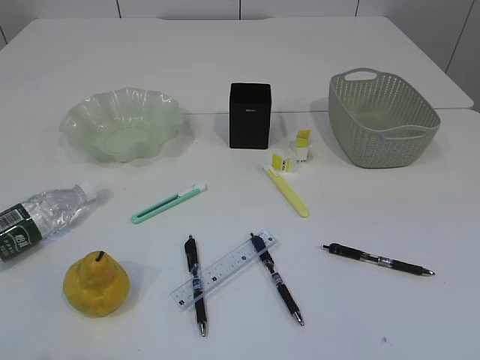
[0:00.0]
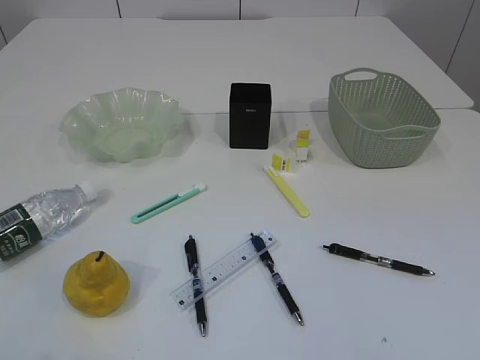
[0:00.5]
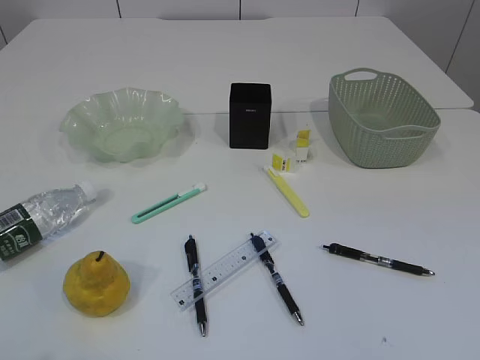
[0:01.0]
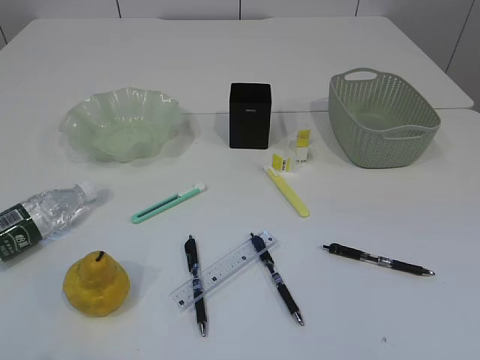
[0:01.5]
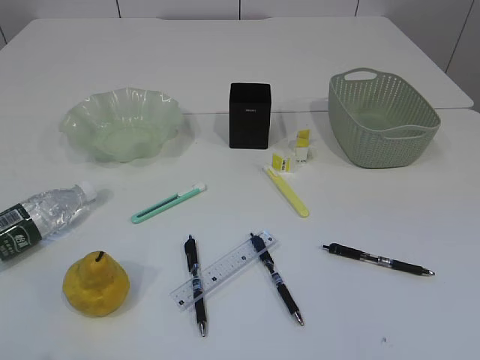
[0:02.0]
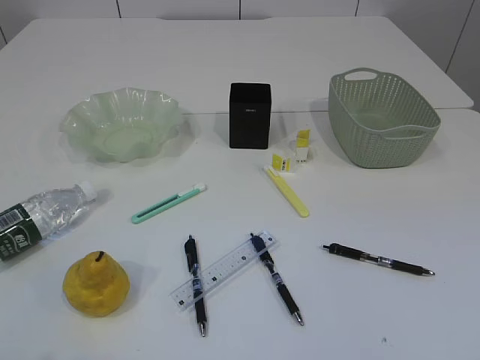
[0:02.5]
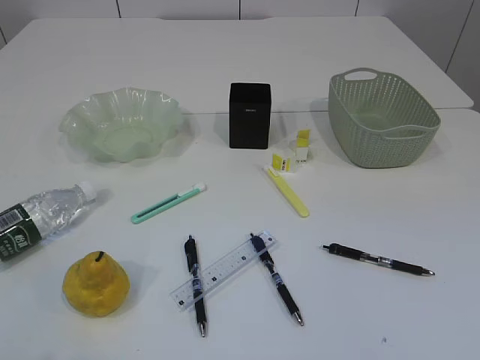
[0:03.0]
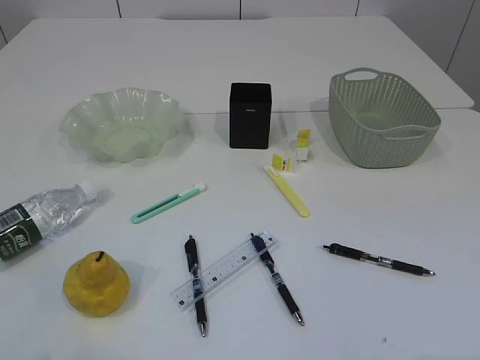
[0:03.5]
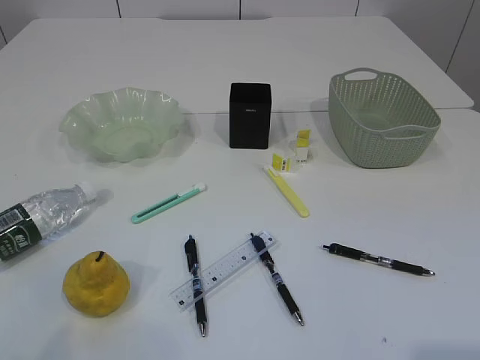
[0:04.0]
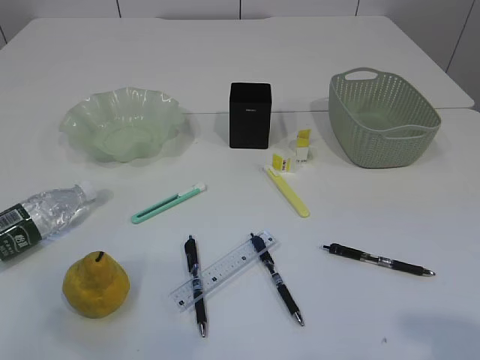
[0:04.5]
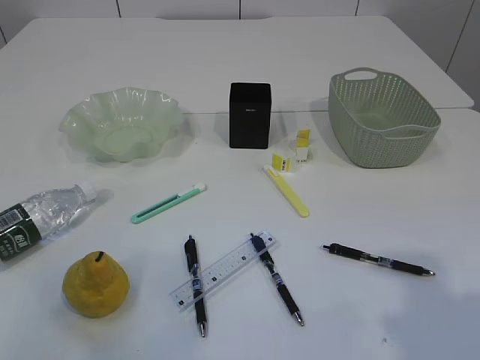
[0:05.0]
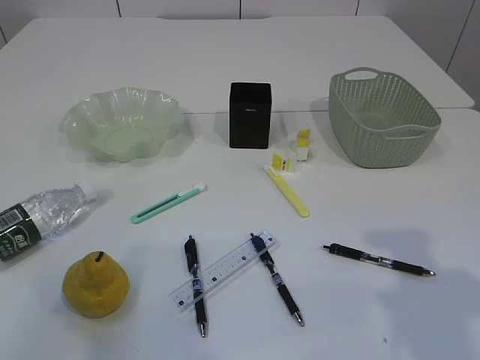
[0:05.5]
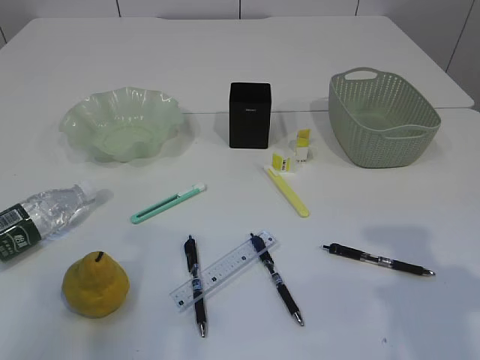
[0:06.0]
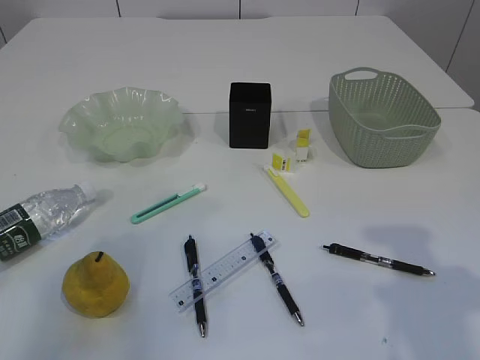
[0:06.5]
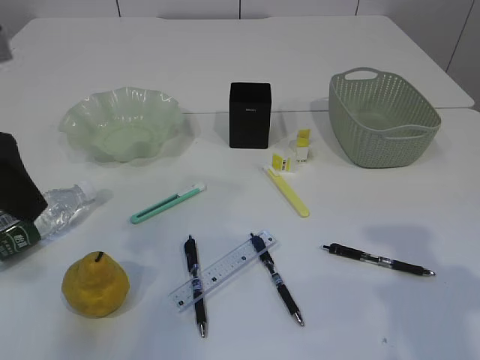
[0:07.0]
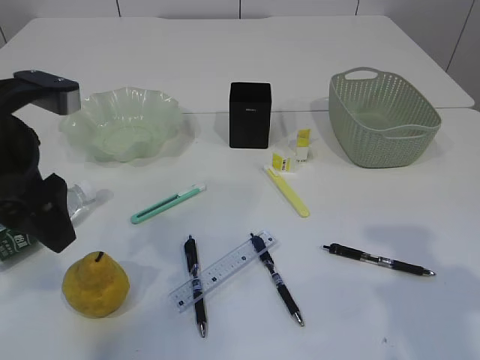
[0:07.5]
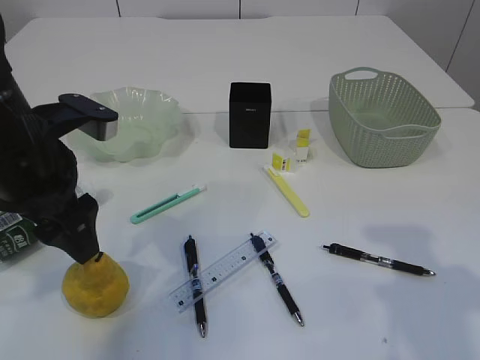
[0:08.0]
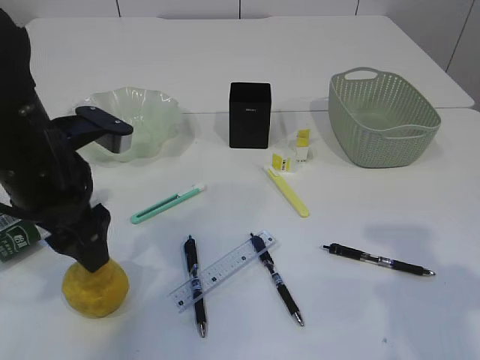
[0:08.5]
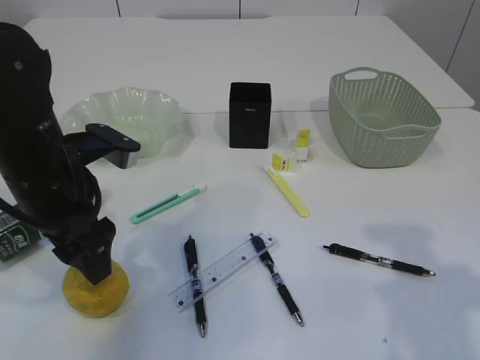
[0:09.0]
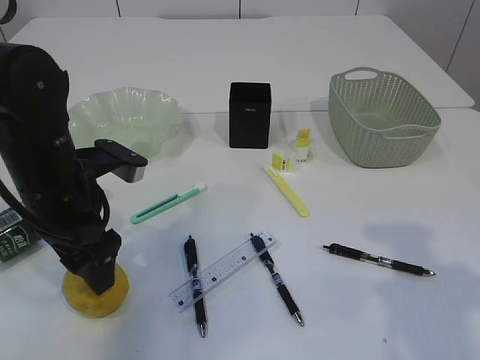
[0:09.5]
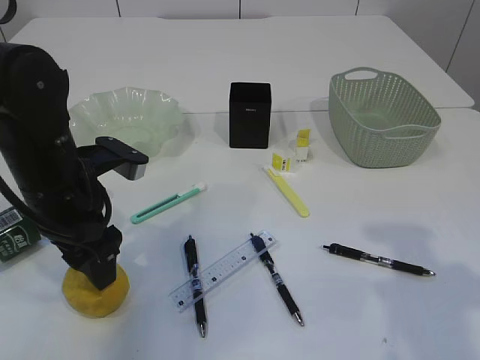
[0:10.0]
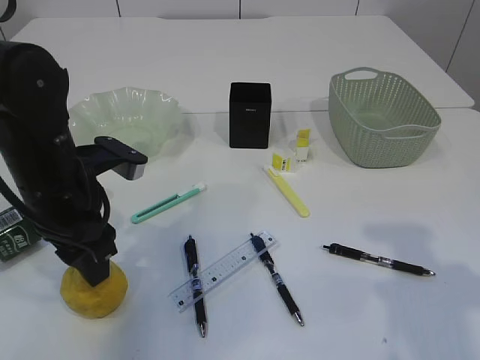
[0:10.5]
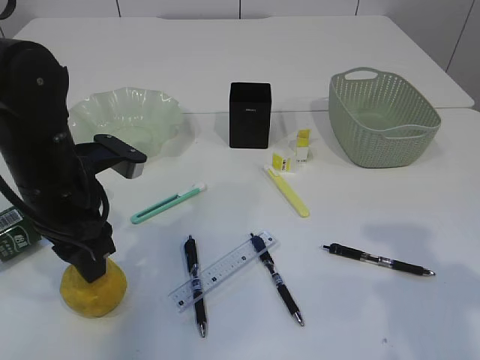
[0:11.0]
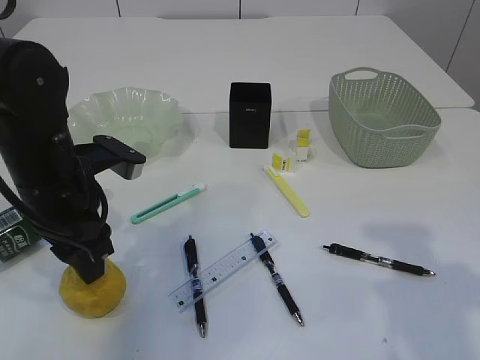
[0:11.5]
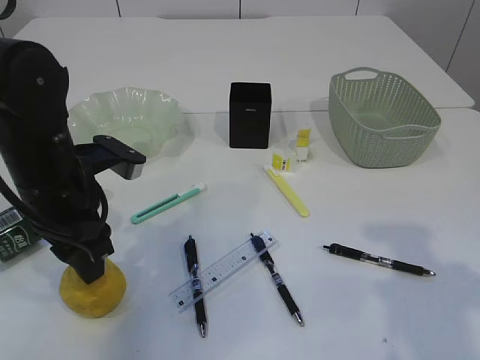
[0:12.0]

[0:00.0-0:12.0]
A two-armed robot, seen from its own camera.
0:04.0 to 0:06.0: Both grippers travel together forward, some 15 cm.
0:06.0 to 0:08.0: The left gripper shifts about 15 cm forward and to the right.
0:08.0 to 0:10.0: The left gripper goes some 5 cm downward.
0:10.0 to 0:12.0: The left gripper closes.

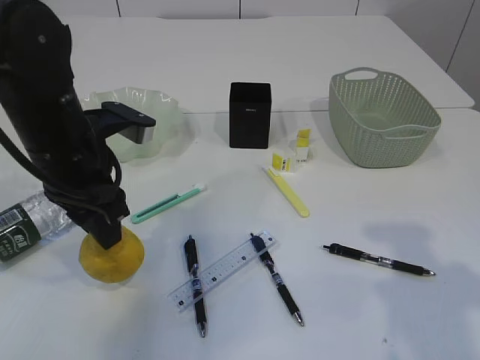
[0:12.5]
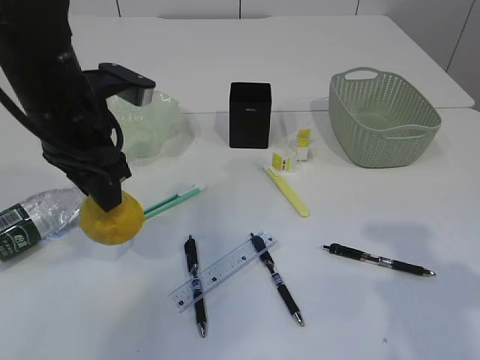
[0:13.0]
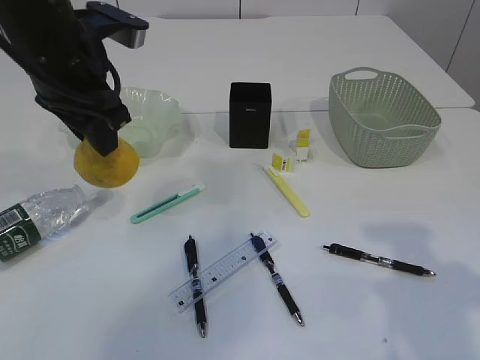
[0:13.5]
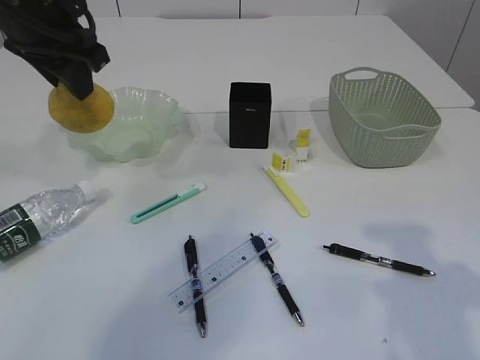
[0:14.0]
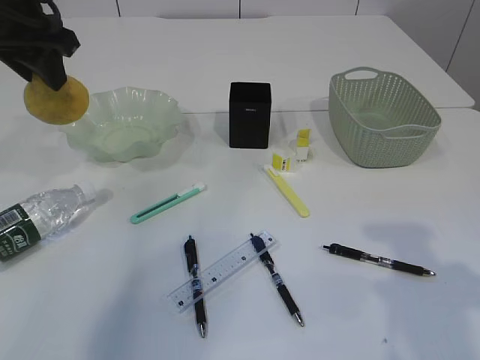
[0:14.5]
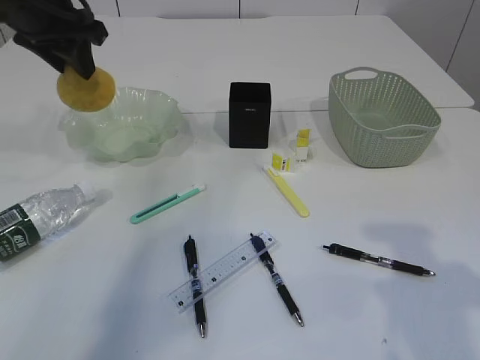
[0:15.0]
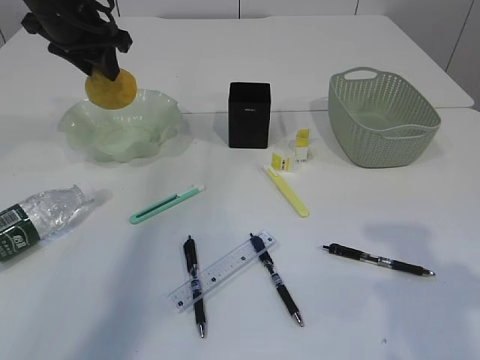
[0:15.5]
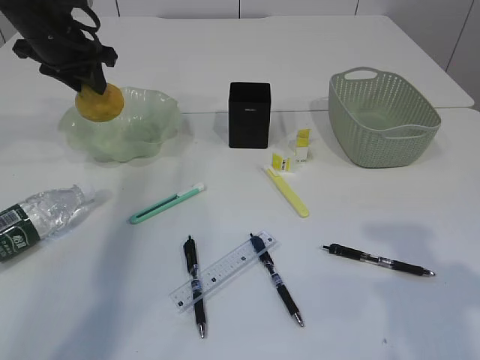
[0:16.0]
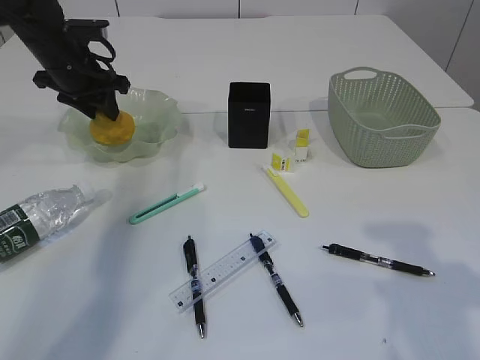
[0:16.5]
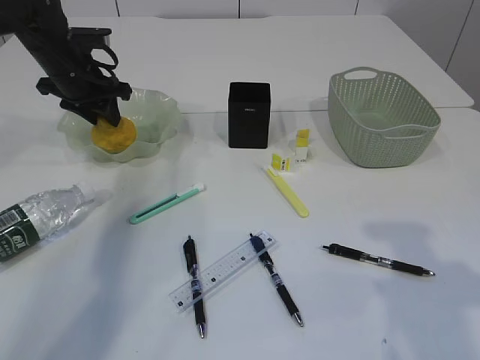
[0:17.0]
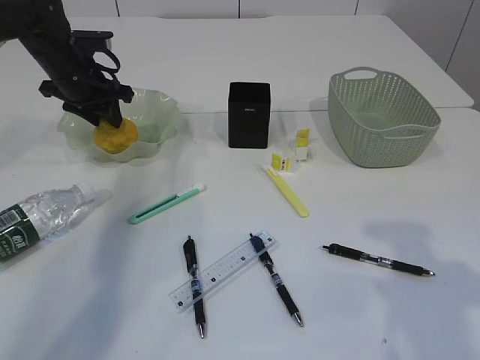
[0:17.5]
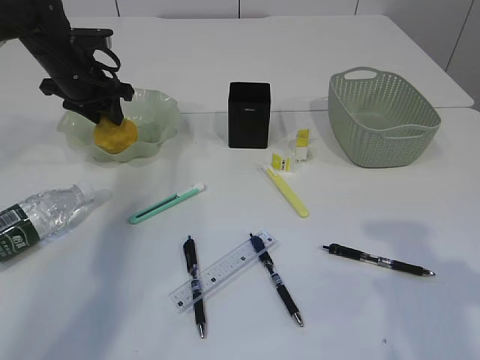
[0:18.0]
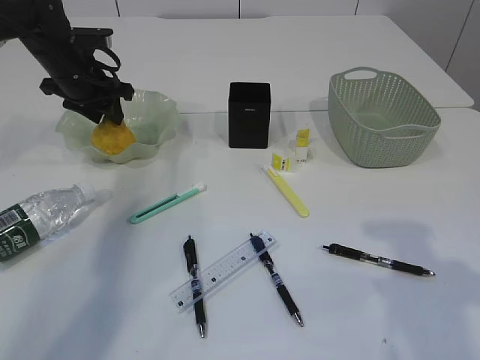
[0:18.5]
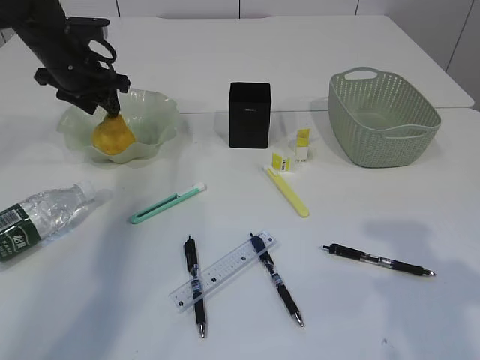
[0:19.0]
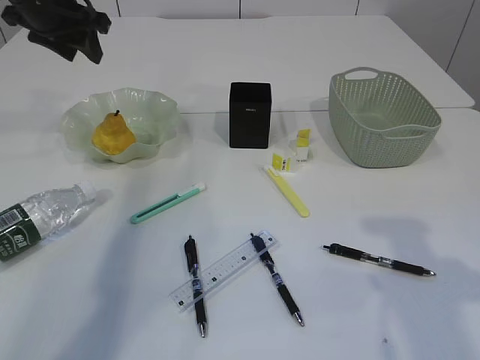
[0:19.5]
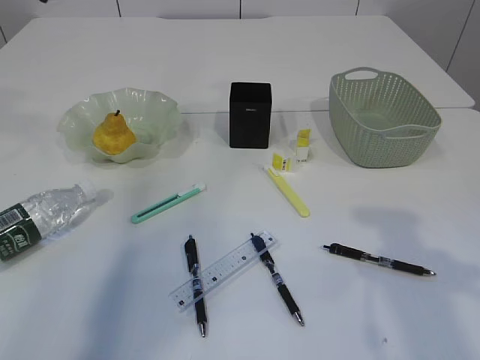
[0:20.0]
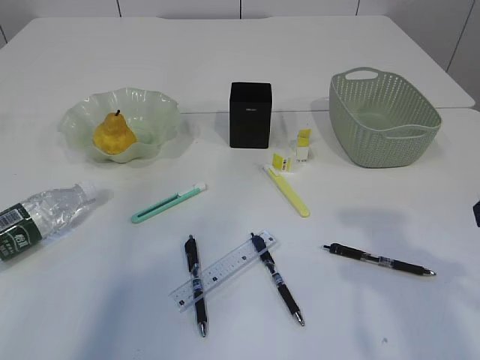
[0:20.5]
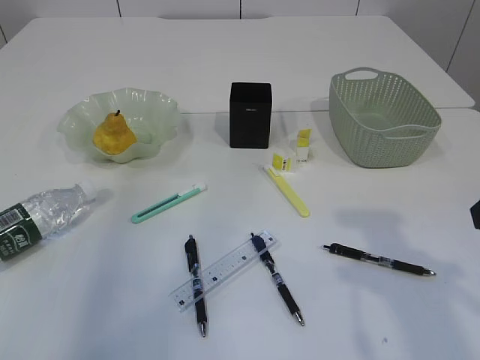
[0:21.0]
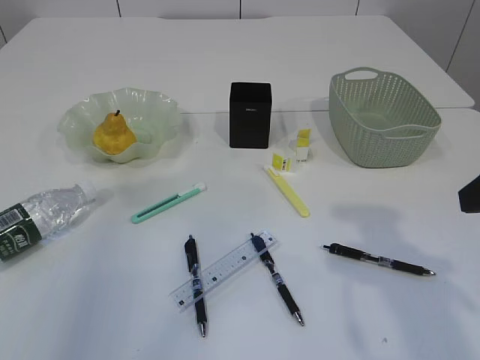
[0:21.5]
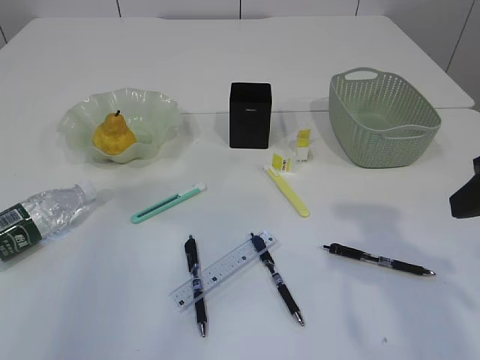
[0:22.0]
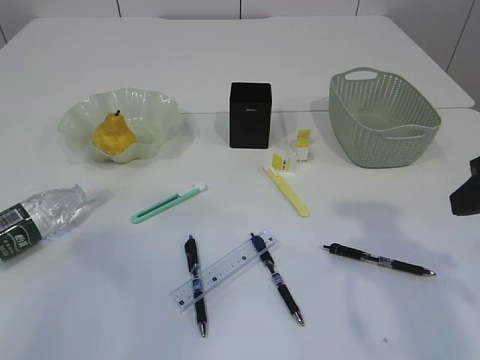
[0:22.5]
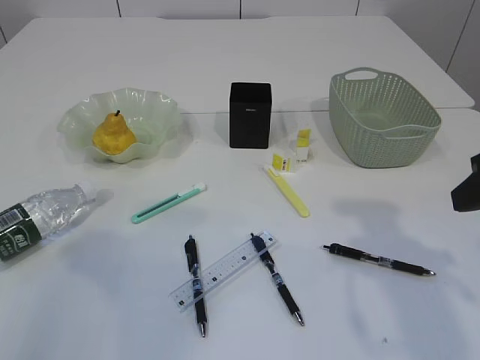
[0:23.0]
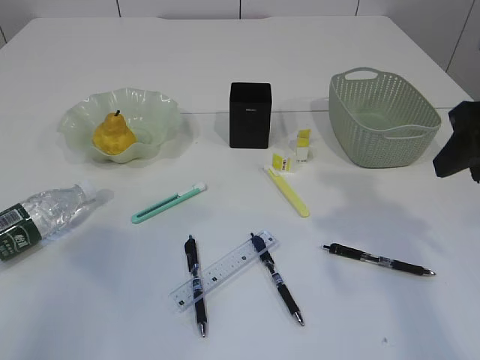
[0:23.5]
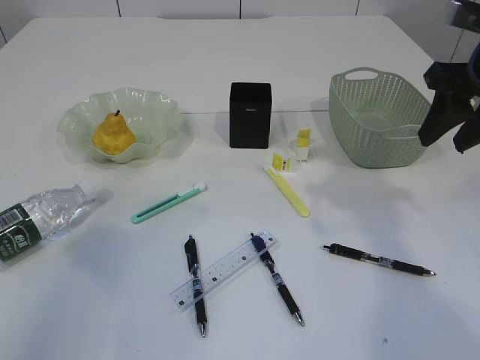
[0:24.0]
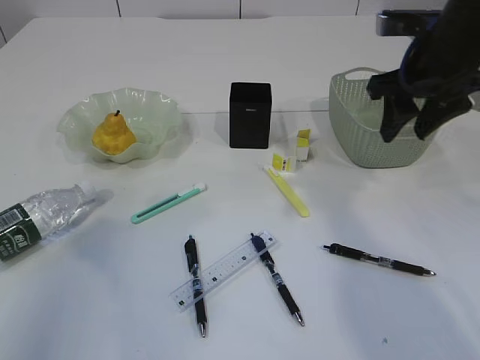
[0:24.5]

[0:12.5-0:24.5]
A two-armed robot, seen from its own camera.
Step, 0:13.5 to 0:19.5: Place the pear in the plate.
0:12.5 to 0:14.5: The left gripper heads upward, forward and to the left, covering approximately 15 cm.
0:14.5 to 0:16.5: The left gripper moves downward and forward, about 15 cm.
0:16.5 to 0:18.5: The grippers stay close to where they were, moving slightly.
0:18.5 to 0:20.5: The left gripper travels upward and backward by about 30 cm.
0:20.5 to 0:22.5: The left gripper shifts roughly 25 cm backward and downward.
0:22.5 to 0:24.5: The right gripper heads forward, covering about 15 cm.

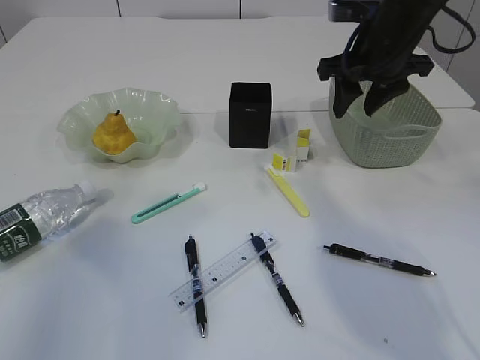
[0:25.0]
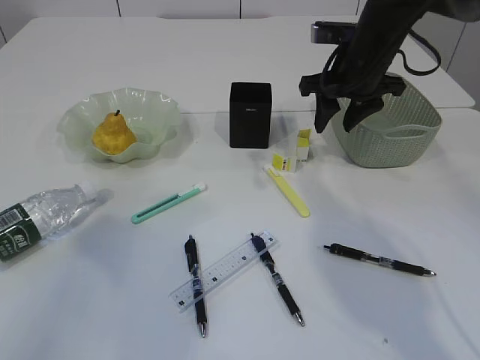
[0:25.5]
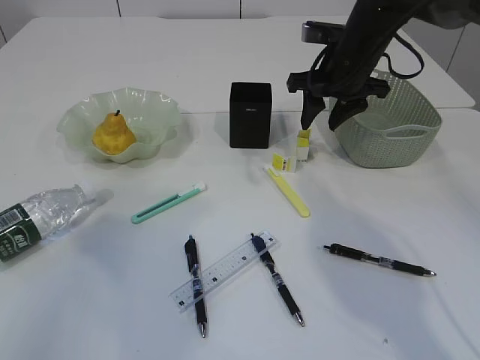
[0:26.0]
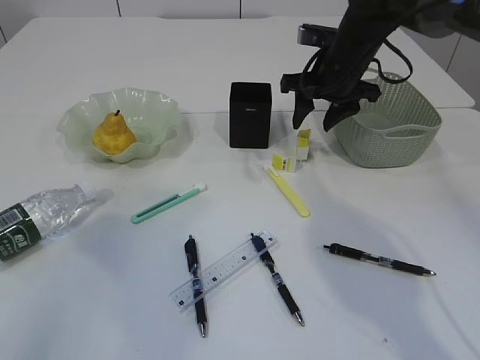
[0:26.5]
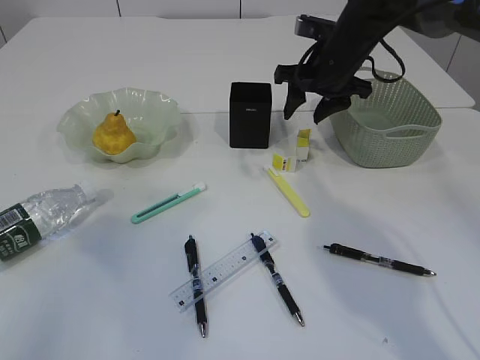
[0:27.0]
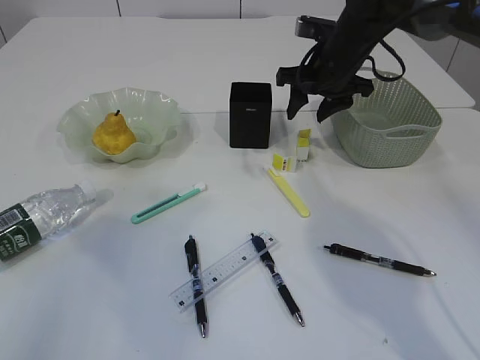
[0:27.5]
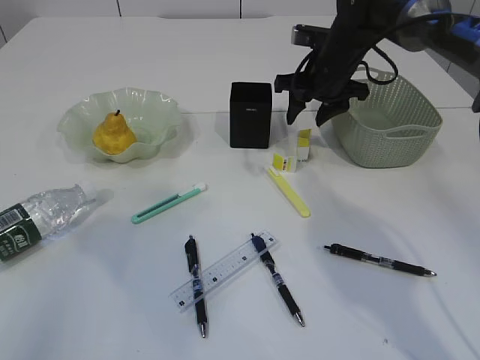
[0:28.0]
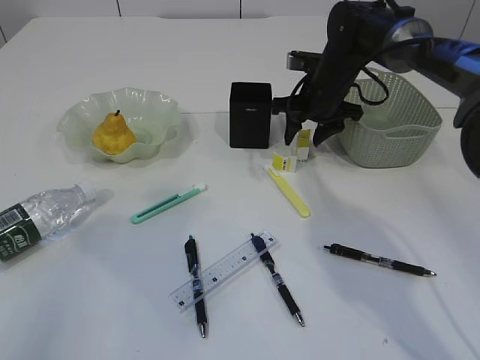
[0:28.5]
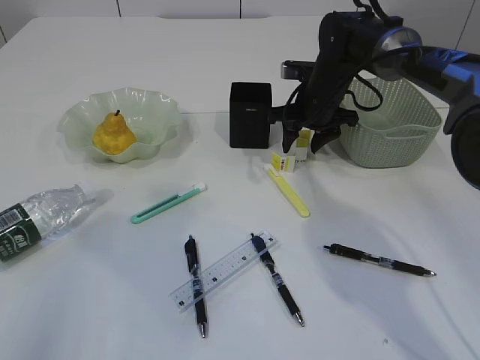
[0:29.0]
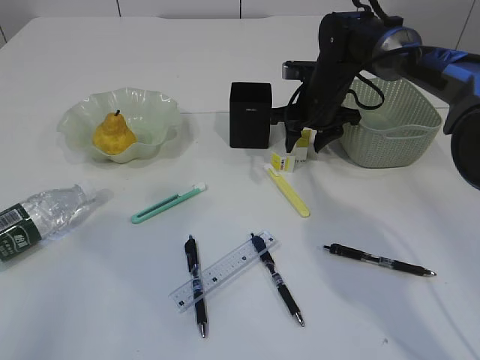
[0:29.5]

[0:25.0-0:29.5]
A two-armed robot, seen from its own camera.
0:25.0 to 0:27.0: The right gripper moves forward, approximately 5 cm.
0:27.0 to 0:29.5: The right gripper heads downward, covering about 5 cm.
